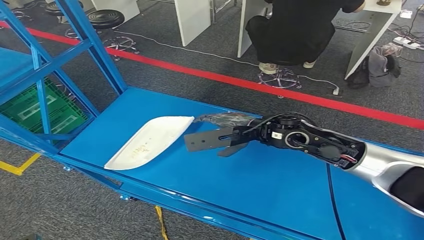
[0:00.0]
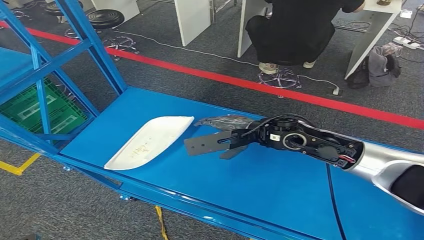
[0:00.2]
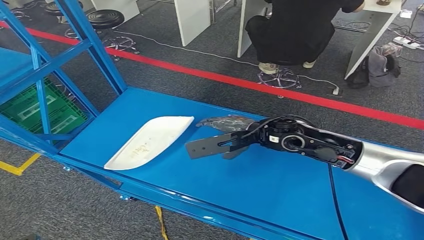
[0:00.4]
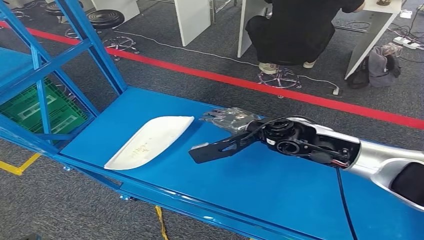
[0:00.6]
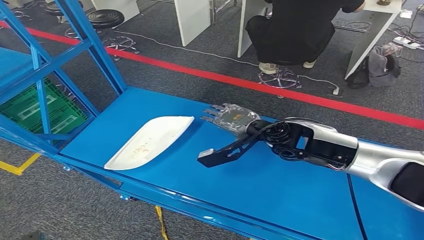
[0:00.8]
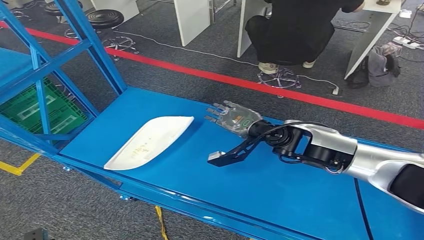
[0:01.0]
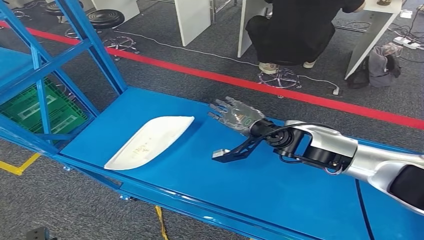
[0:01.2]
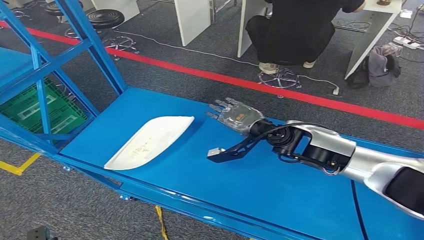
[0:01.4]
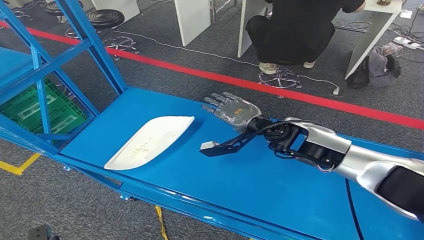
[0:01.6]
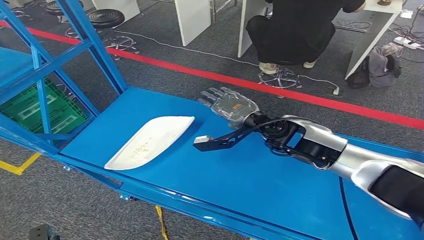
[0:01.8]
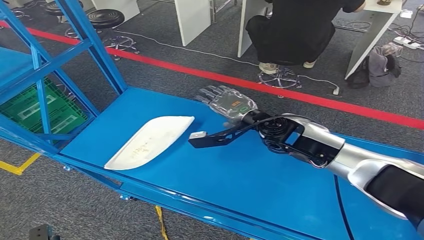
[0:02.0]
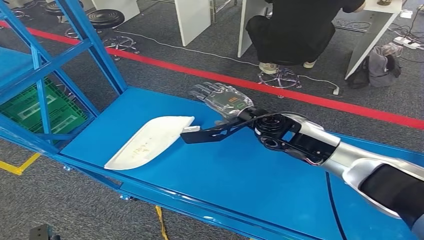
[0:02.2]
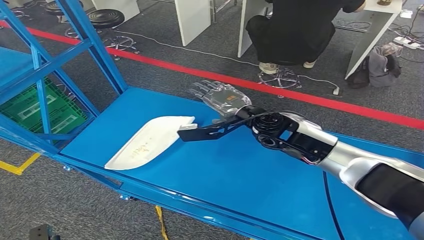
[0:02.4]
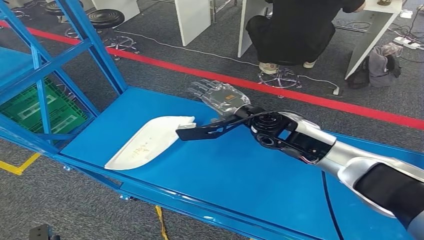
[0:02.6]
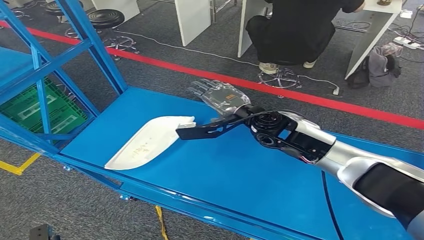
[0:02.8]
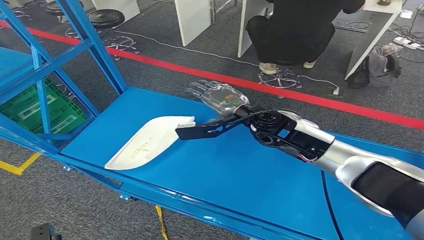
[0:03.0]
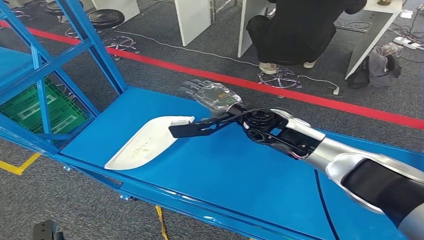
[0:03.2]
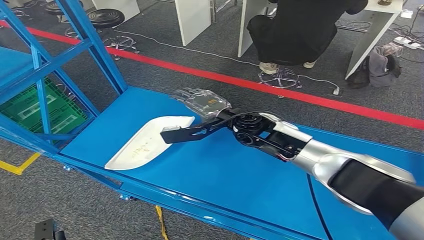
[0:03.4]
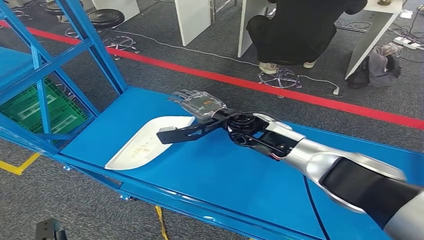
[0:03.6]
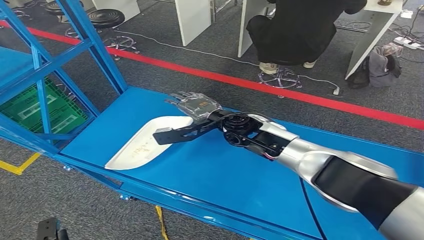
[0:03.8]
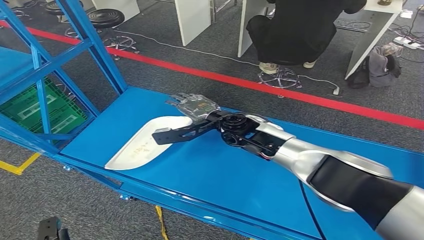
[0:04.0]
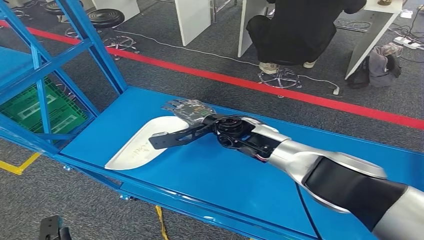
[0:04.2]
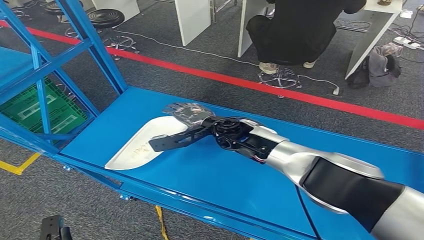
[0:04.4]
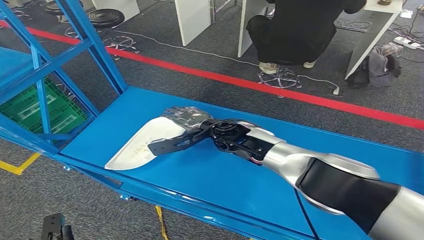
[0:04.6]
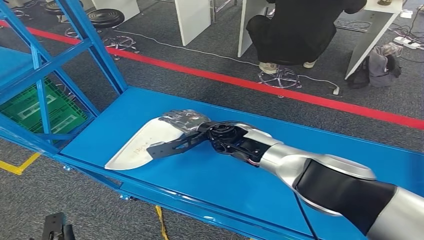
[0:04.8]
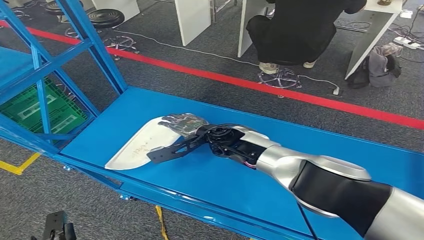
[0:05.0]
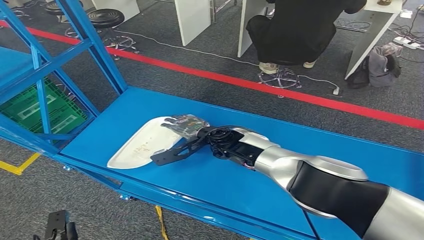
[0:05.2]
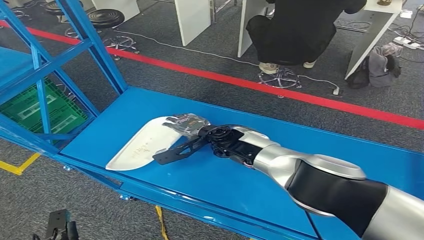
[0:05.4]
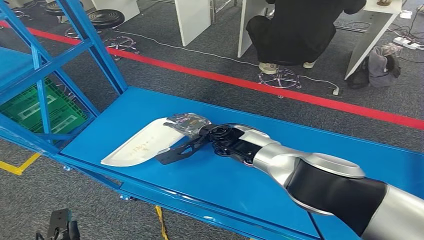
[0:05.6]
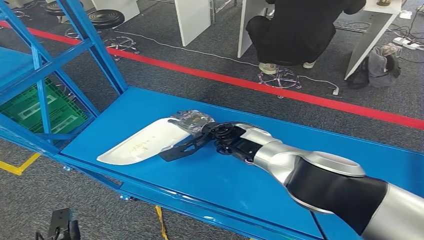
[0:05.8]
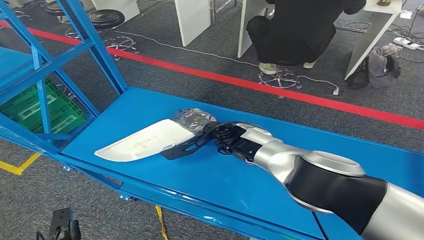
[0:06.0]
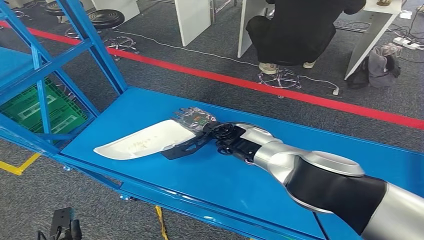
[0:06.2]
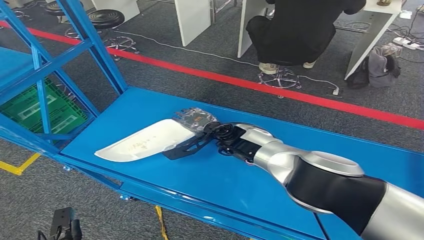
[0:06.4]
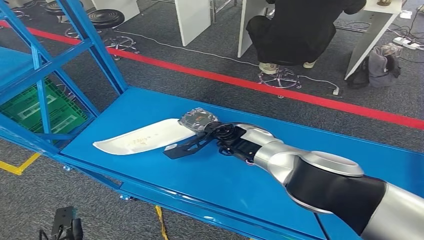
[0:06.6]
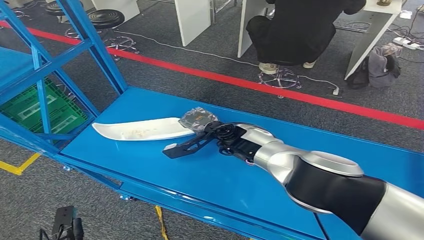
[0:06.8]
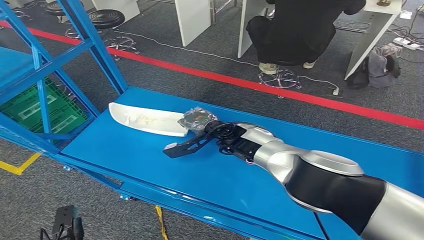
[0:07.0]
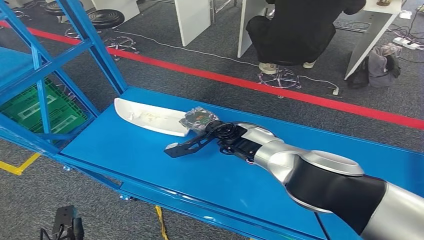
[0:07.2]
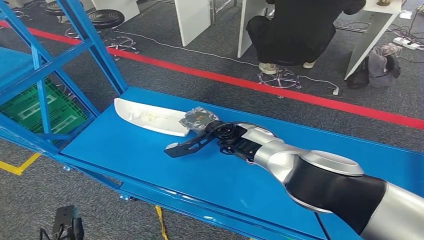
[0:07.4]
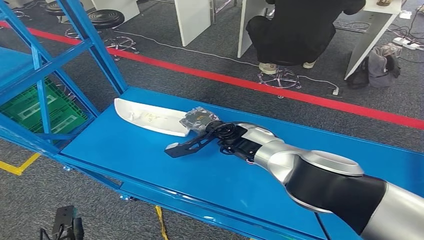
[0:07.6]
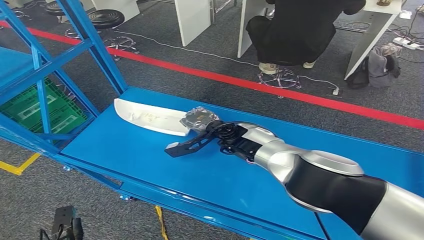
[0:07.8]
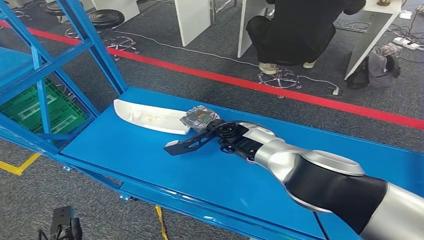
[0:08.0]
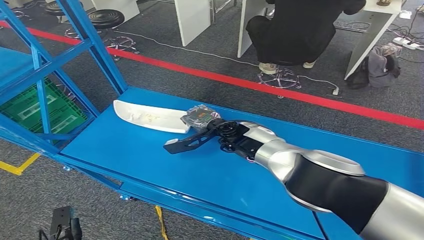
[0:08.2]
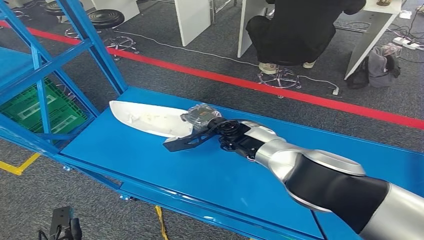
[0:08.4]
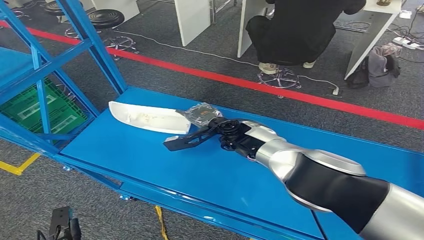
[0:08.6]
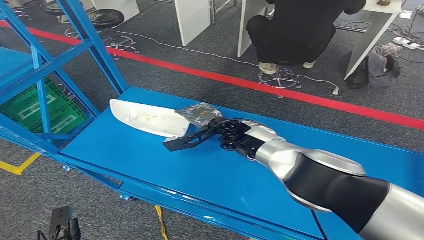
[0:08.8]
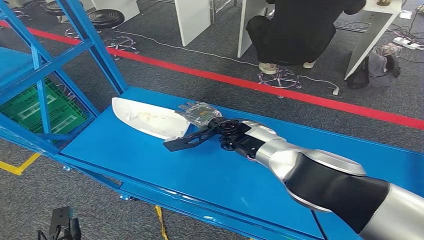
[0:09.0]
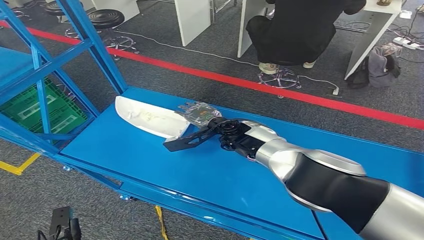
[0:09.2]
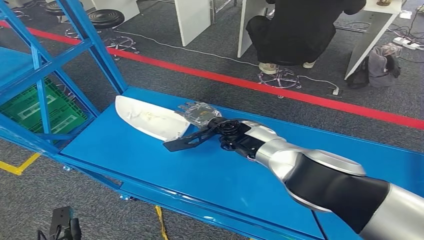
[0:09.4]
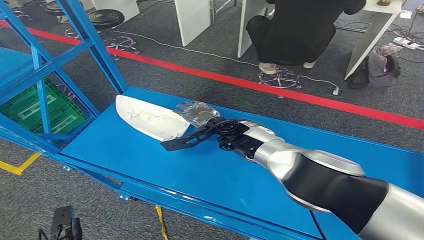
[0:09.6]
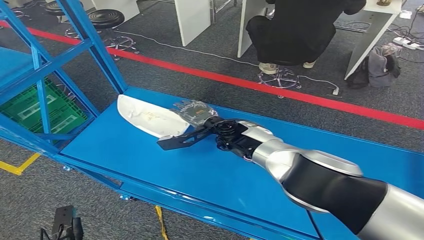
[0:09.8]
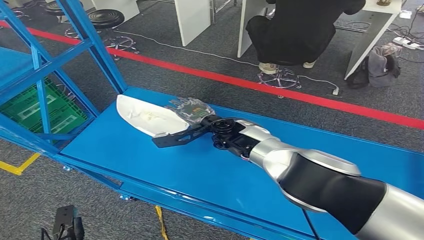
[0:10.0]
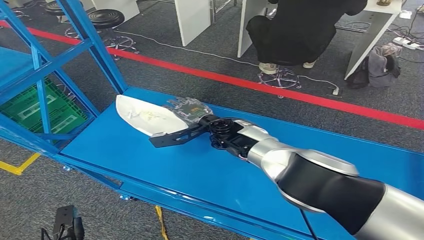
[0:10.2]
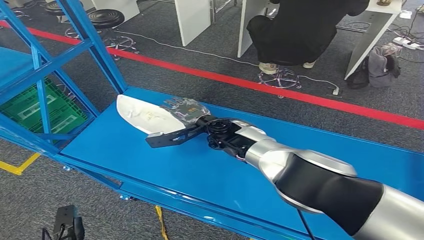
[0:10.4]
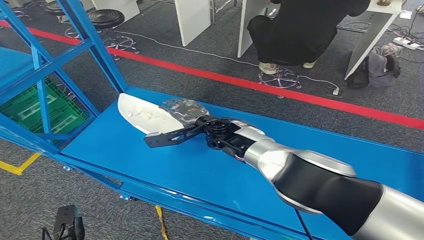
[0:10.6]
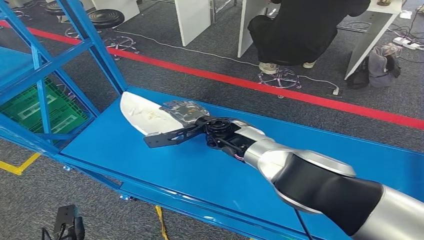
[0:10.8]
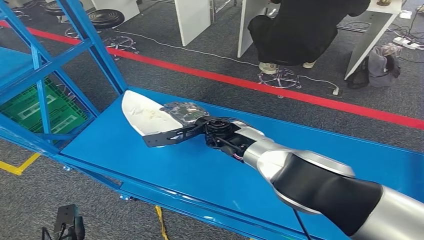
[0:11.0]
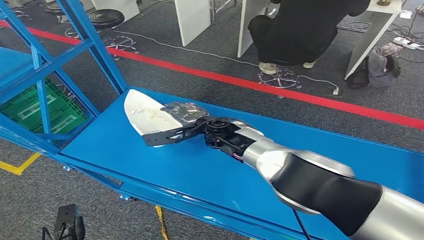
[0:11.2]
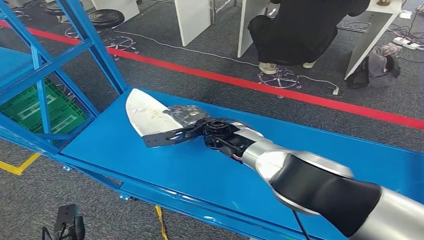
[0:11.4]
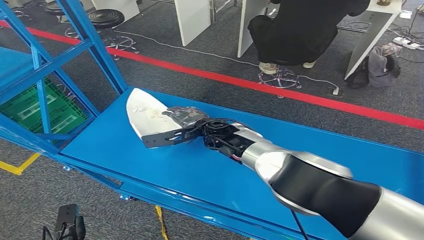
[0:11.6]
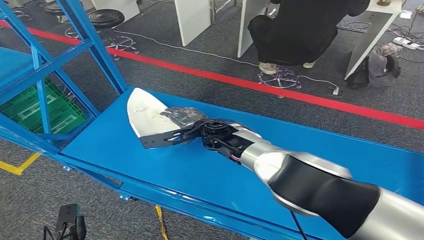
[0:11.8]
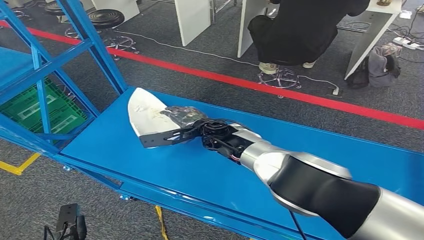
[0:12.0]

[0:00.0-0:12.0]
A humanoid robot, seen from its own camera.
0:00.0 to 0:01.6: The right hand moves roughly 5 cm.
0:01.6 to 0:03.0: The right hand moves approximately 5 cm.
0:03.0 to 0:04.4: The right hand is displaced to the left and downward by roughly 10 cm.
0:04.4 to 0:06.0: There are only small adjustments of the hands.
0:06.0 to 0:07.6: Both hands stay about where they are.
0:07.6 to 0:10.4: The hands stay close to where they were, moving slightly.
0:10.4 to 0:12.0: The hands stay close to where they were, moving slightly.

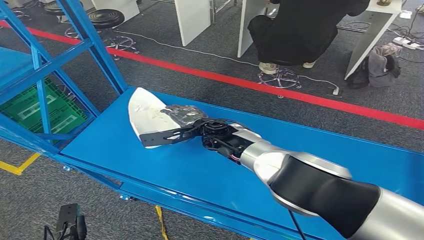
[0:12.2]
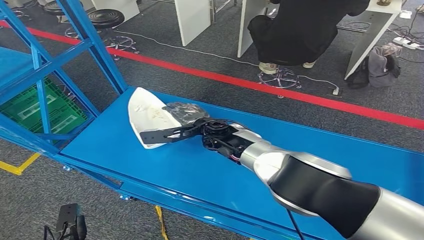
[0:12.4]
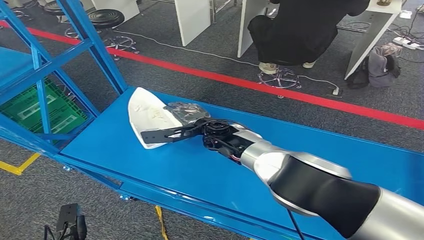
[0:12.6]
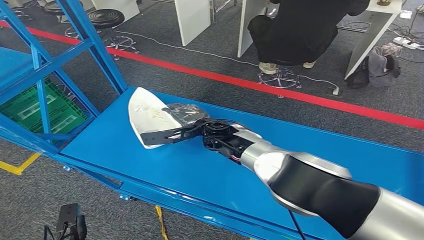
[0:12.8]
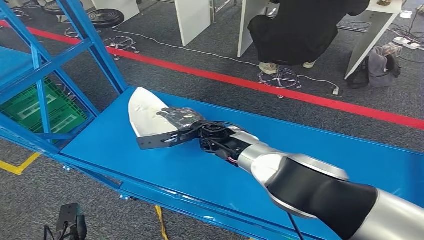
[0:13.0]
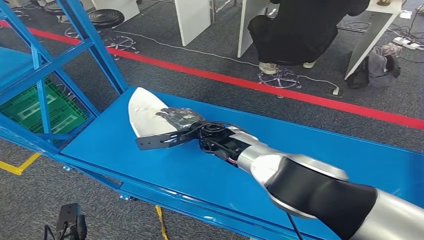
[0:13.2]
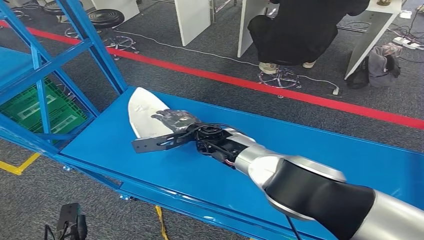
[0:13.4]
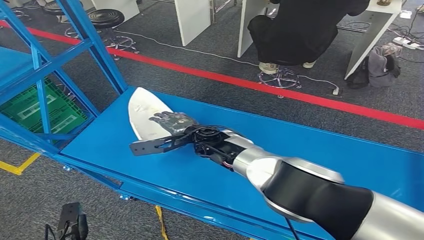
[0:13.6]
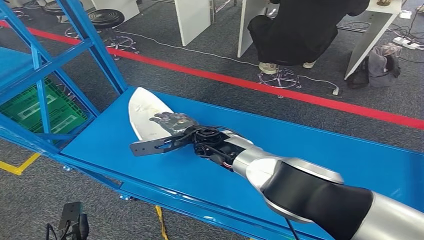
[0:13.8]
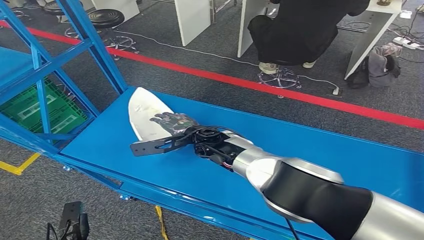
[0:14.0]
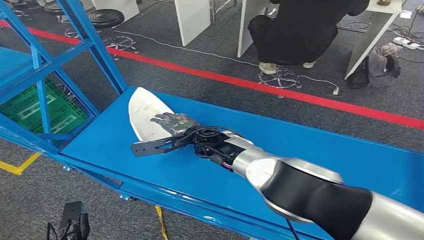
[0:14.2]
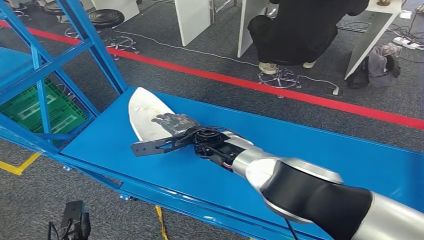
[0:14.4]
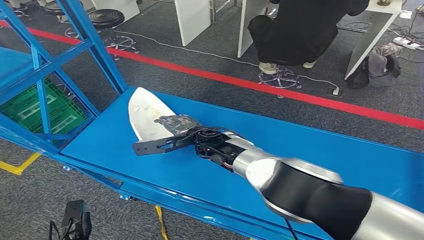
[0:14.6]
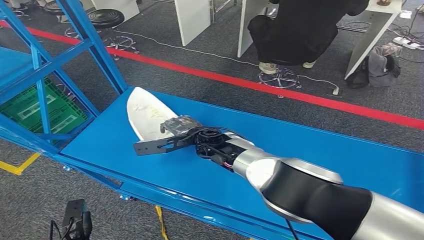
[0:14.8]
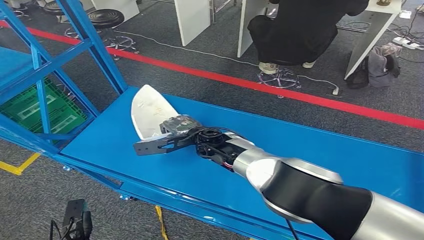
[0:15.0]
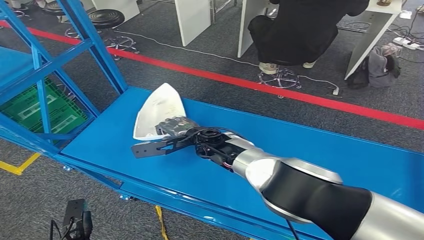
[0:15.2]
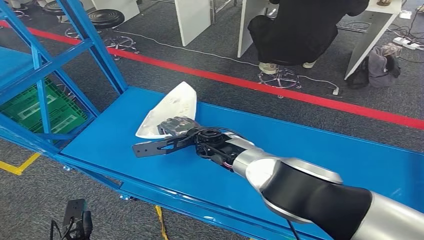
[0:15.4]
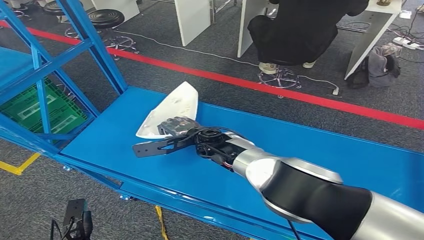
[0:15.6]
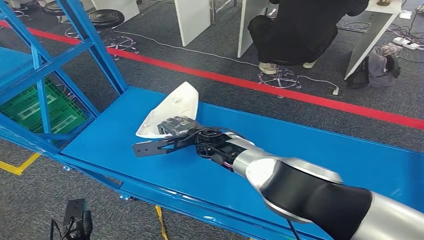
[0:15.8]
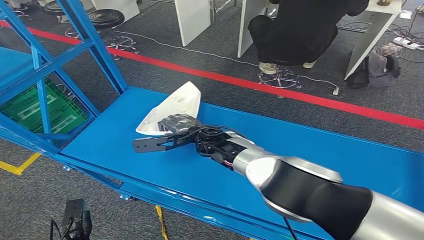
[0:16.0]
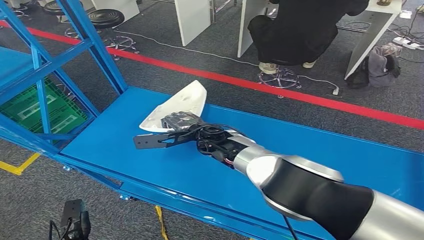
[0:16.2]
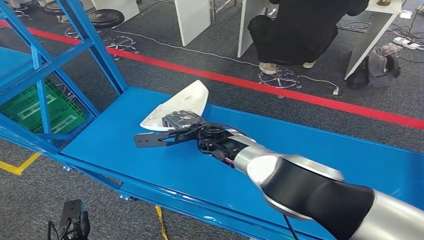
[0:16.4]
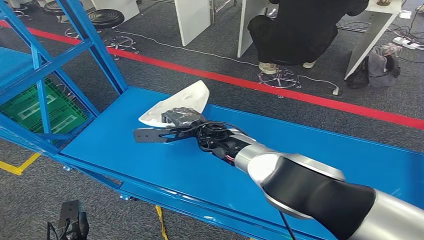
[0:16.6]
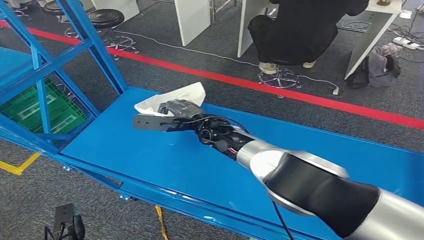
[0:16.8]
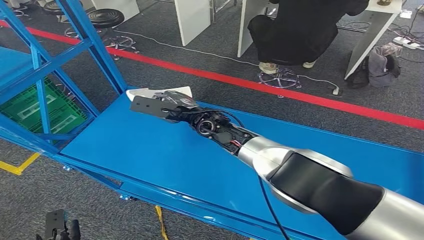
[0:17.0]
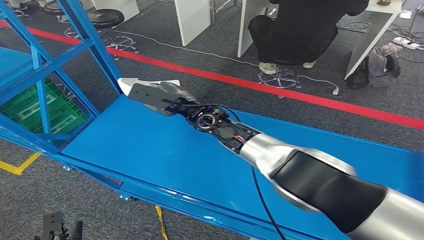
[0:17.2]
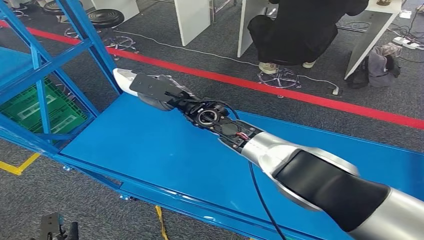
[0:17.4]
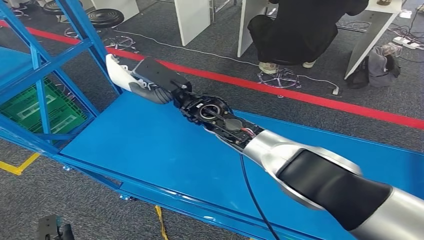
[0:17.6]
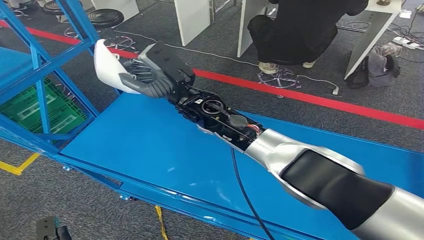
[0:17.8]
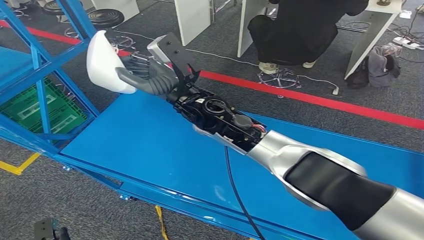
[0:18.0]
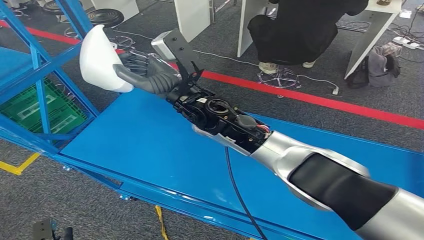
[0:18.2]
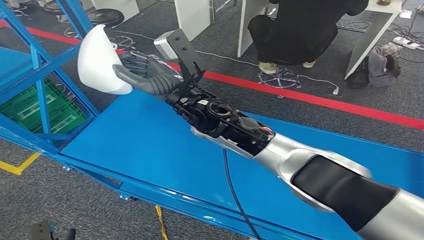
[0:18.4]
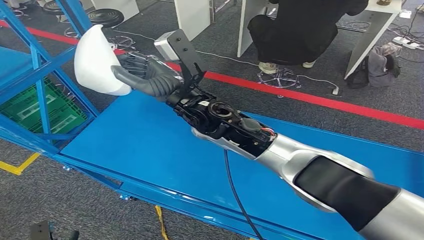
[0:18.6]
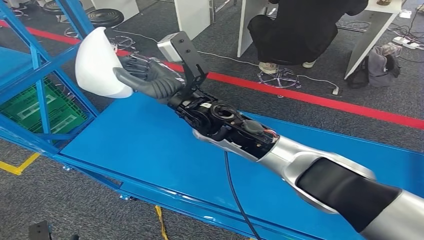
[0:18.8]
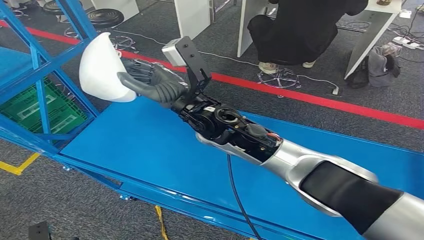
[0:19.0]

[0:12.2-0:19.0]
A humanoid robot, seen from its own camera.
Step, 0:12.2 to 0:17.4: Pick up the small component from the shelf.
0:12.2 to 0:15.0: The hands make only small movements.
0:15.0 to 0:16.2: Both hands stay about where they are.
0:16.2 to 0:17.6: The right hand heads upward, covering some 10 cm.
0:17.6 to 0:19.0: The right hand moves backward, about 5 cm.
